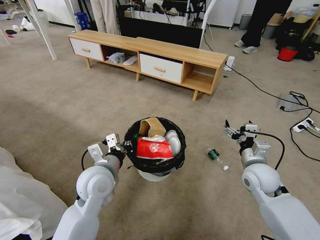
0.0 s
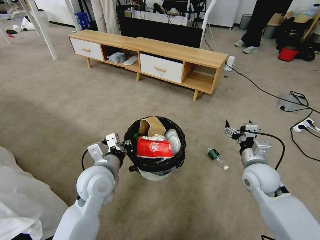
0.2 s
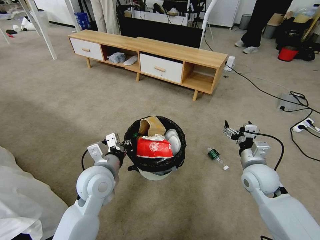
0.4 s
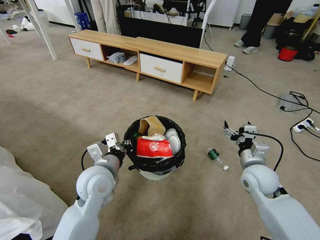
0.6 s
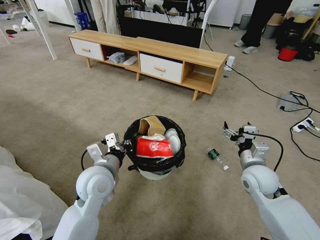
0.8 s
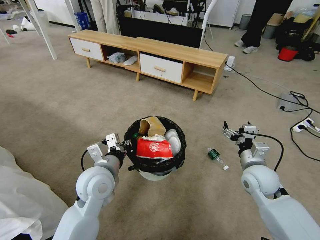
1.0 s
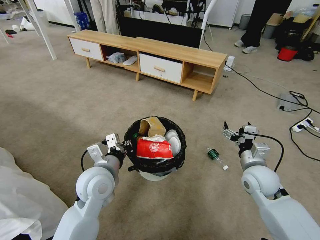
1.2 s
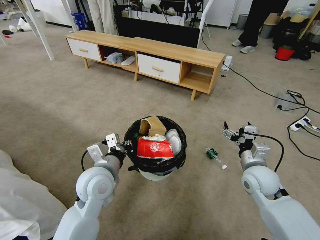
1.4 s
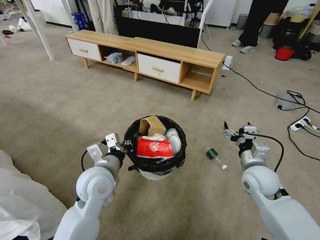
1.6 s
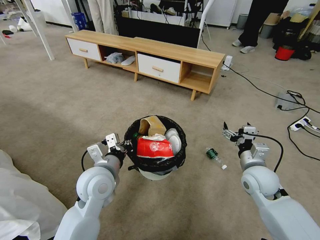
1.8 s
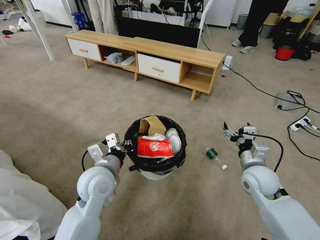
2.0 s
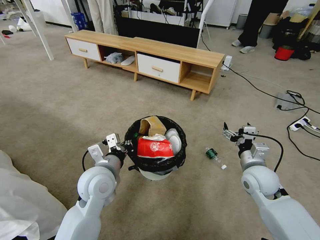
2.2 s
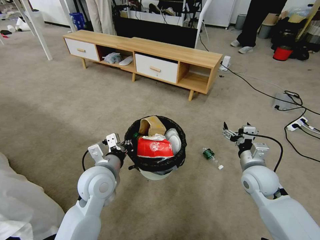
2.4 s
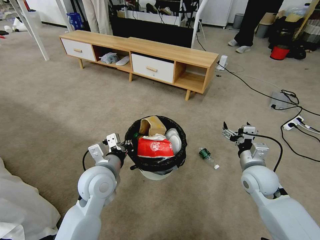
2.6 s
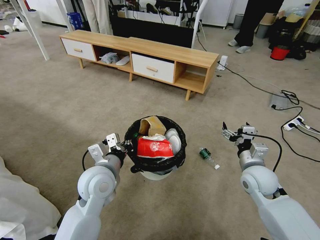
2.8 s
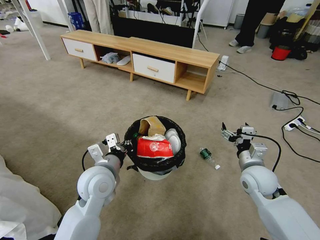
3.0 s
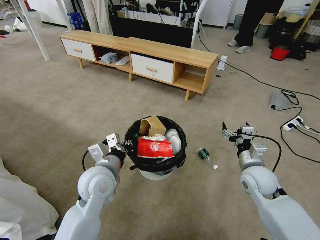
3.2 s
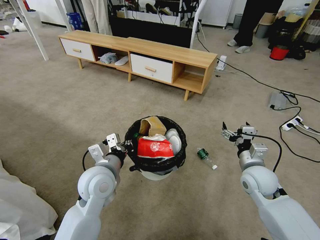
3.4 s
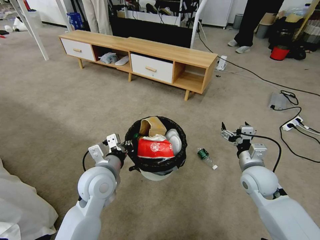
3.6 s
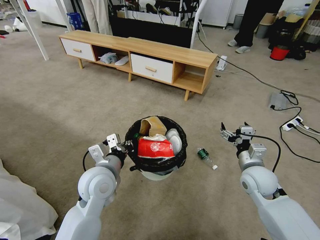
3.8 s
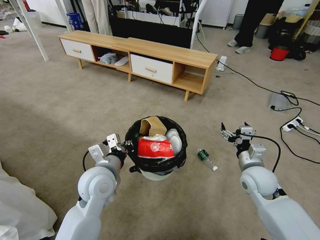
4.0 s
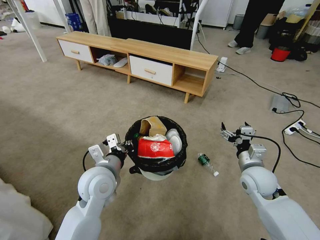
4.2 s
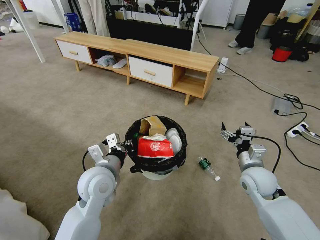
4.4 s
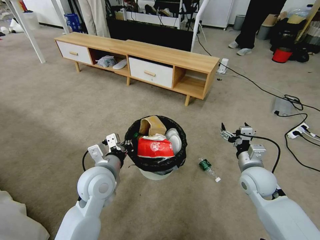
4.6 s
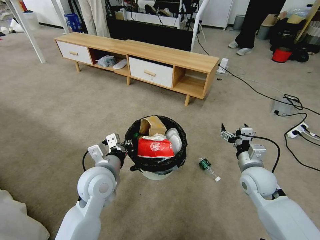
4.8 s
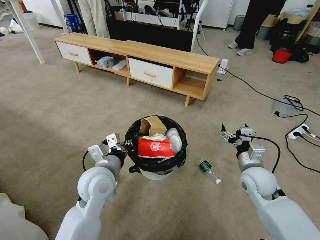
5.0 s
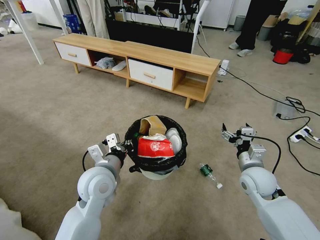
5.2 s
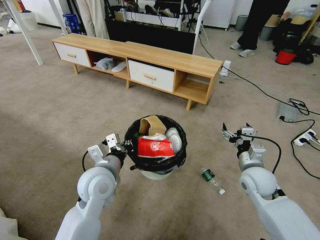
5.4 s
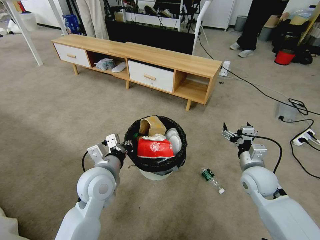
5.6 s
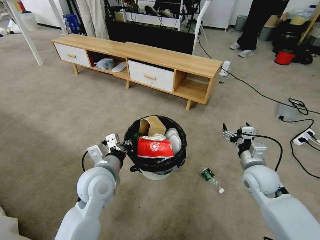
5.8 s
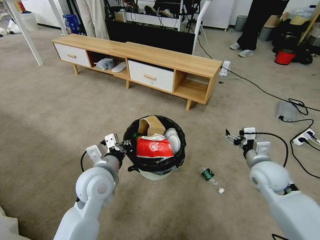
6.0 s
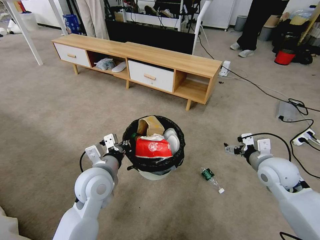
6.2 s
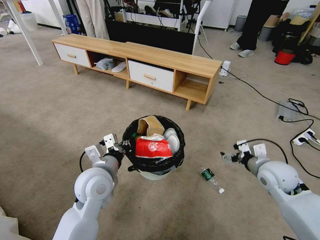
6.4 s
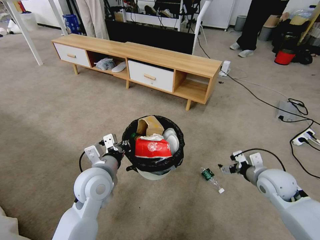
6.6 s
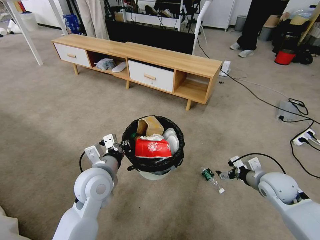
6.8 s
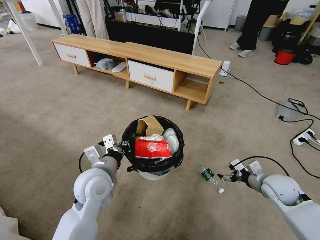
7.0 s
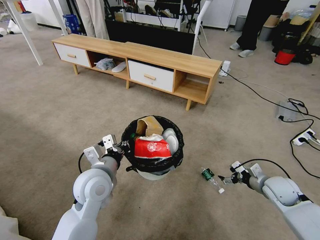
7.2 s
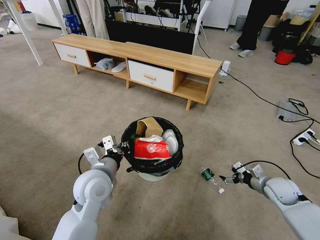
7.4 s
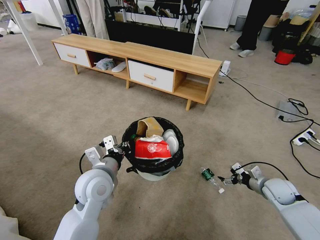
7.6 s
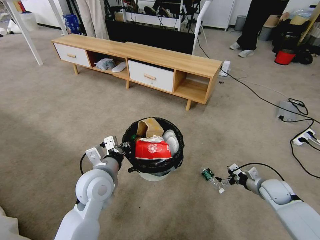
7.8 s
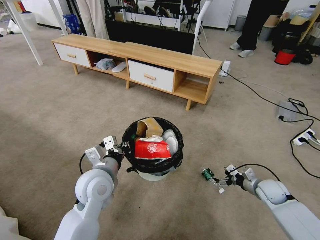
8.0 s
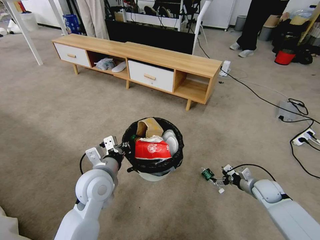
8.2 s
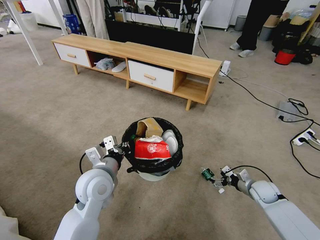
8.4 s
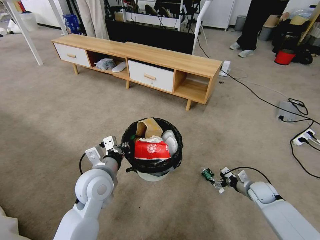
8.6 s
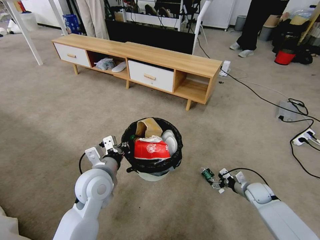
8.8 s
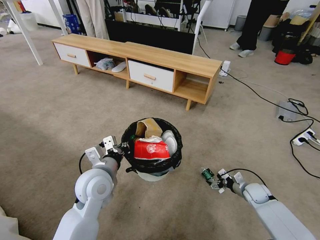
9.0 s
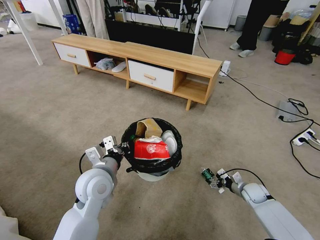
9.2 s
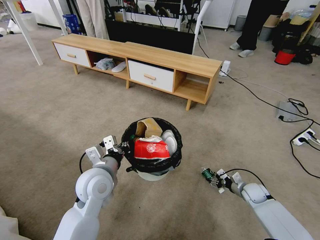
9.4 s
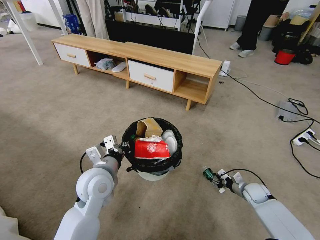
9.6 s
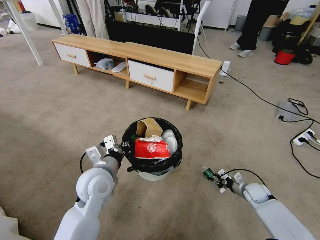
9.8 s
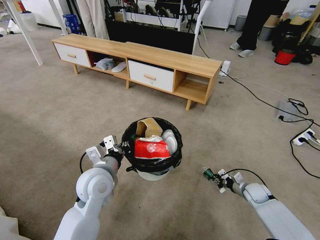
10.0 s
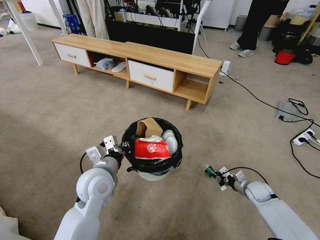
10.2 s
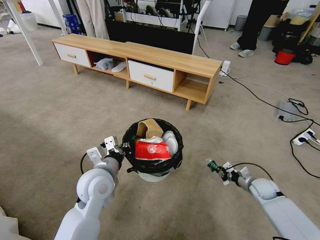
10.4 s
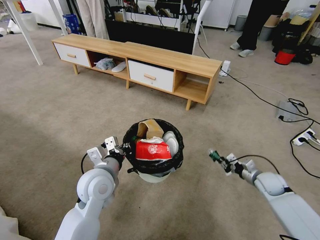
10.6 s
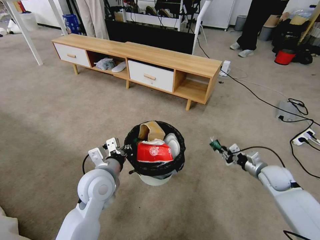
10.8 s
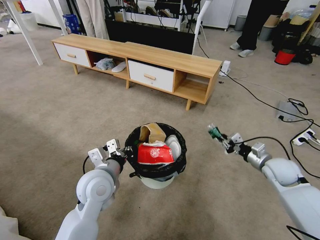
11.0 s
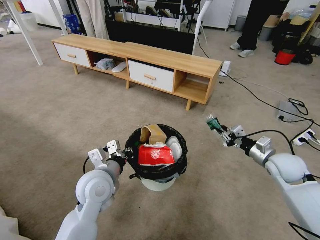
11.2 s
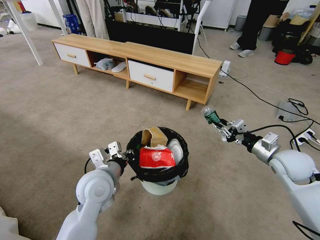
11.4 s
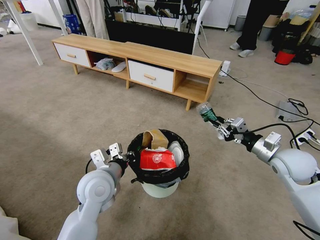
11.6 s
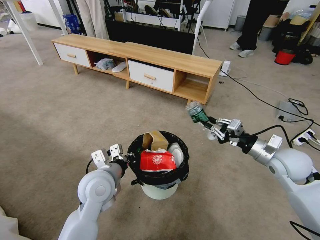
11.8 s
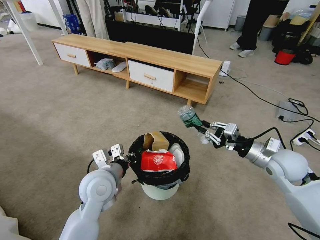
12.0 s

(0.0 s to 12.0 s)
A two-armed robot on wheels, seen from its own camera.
Task of the whole recording: Pick up the trash bin and place the garbage on the floor into it.
0.0 s - 4.4 s: Both grippers stay put.
6.0 s - 7.6 s: The right gripper travels downward and to the right by about 15 cm.
7.6 s - 9.0 s: The right gripper heads downward, covering about 10 cm.
9.0 s - 10.4 s: The right gripper closes its fingers.
10.4 s - 12.0 s: The right gripper shifts about 25 cm upward.

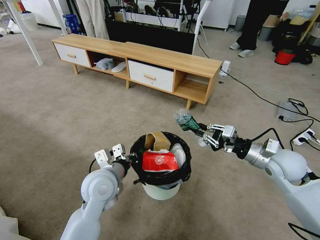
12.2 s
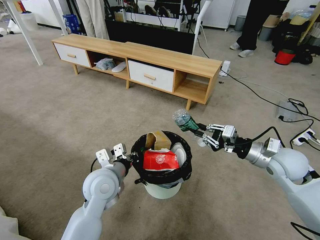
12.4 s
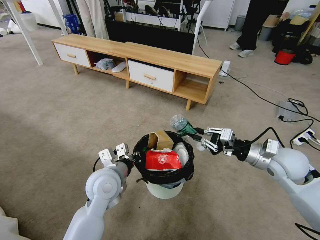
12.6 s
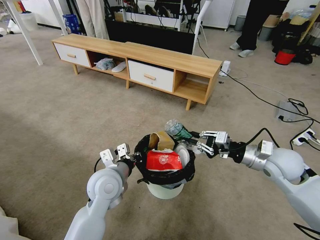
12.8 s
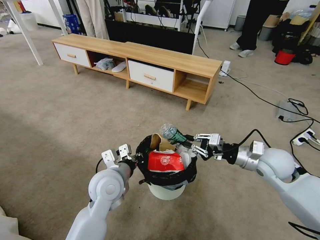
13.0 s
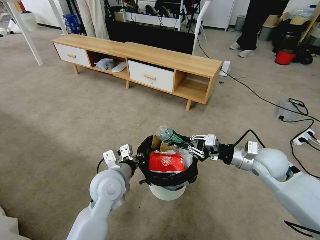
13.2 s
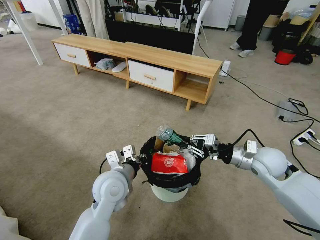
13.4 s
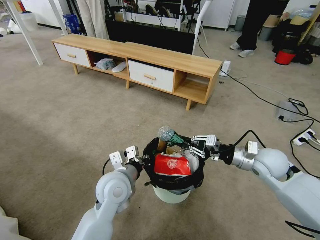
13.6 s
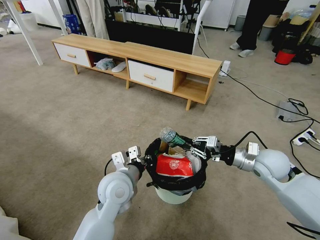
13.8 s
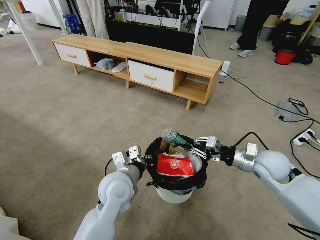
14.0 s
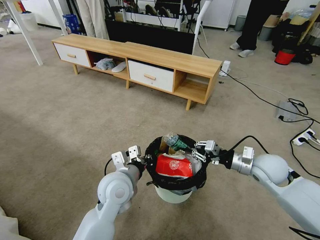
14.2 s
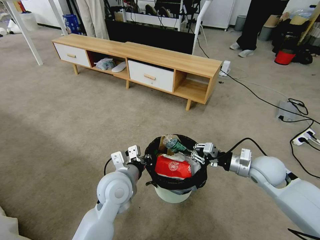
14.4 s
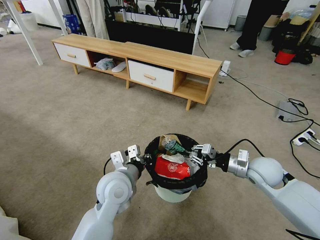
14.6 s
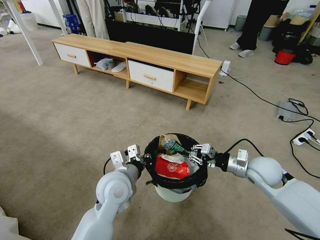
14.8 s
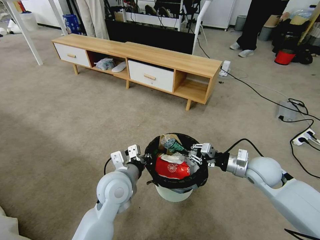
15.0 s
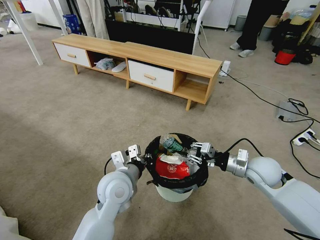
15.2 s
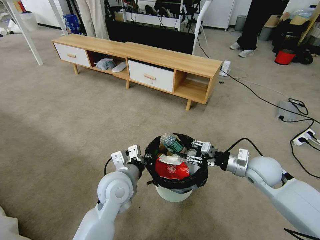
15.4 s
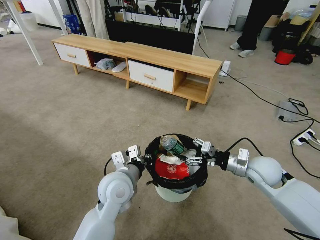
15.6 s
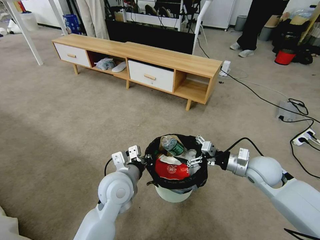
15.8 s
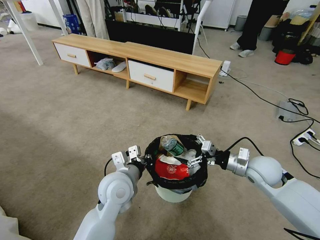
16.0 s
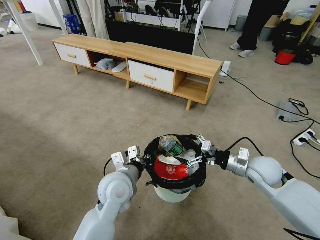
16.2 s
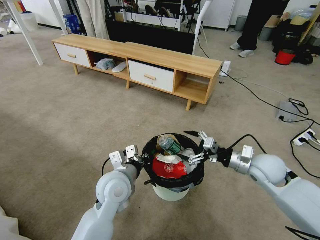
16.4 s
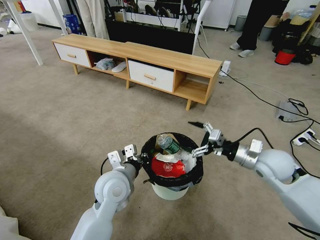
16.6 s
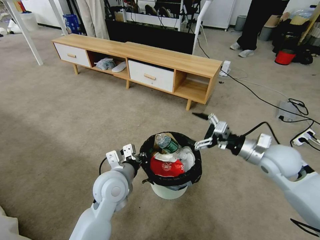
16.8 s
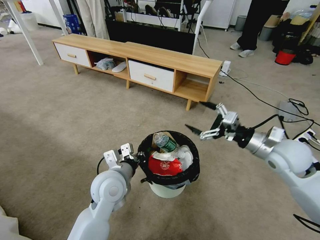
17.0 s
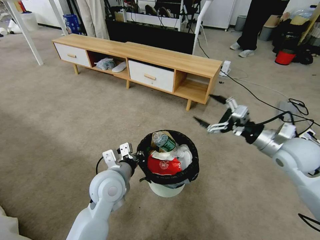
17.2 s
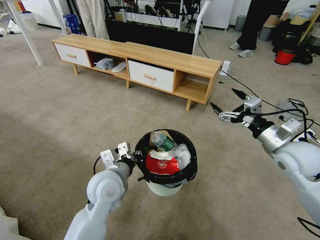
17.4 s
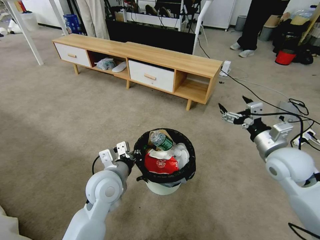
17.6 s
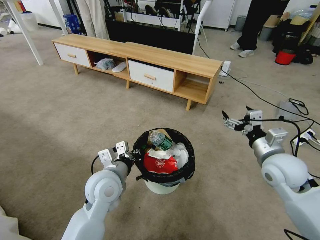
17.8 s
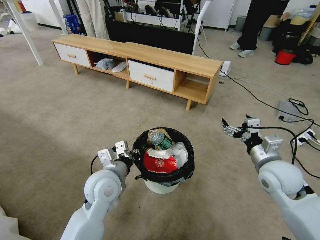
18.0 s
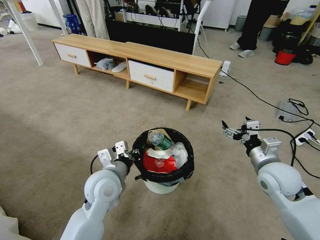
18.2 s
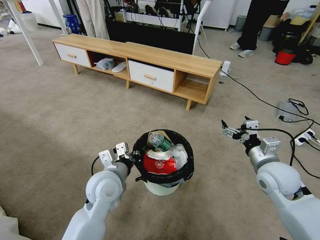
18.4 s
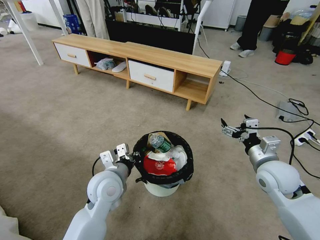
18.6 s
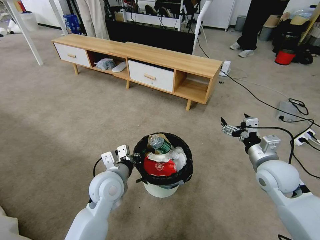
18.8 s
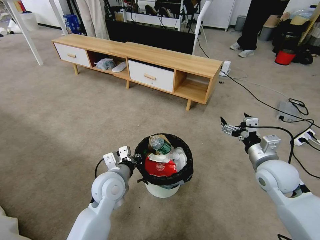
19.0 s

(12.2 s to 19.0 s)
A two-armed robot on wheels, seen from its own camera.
Task of the whole recording: Pick up the trash bin and place the garbage on the floor into it.
12.2 s - 15.0 s: The grippers make only small movements.
15.0 s - 16.2 s: The right gripper opens up.
16.2 s - 17.6 s: The right gripper is displaced upward by roughly 10 cm.
17.6 s - 19.0 s: The right gripper changes place by roughly 5 cm.
